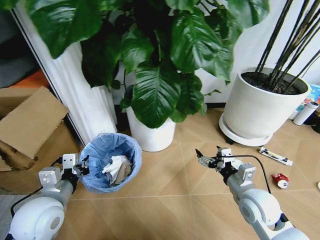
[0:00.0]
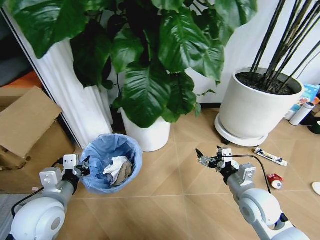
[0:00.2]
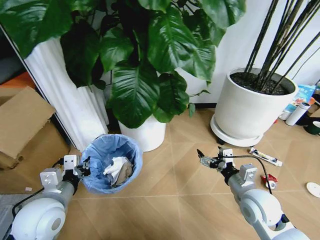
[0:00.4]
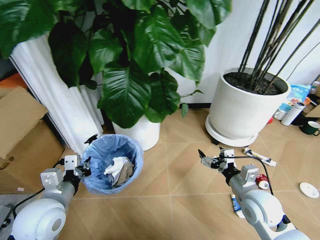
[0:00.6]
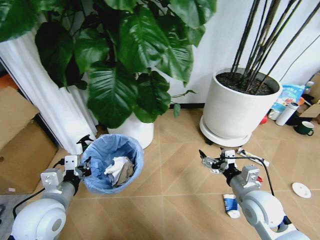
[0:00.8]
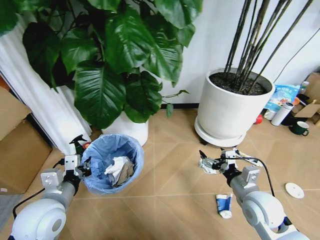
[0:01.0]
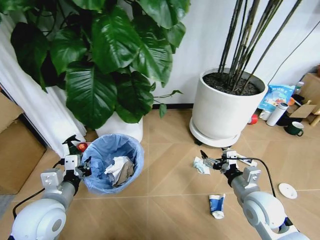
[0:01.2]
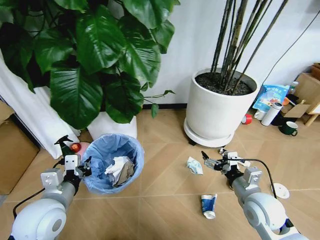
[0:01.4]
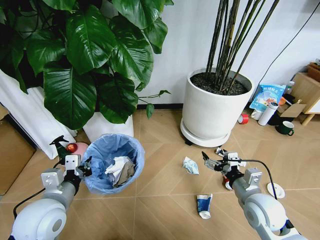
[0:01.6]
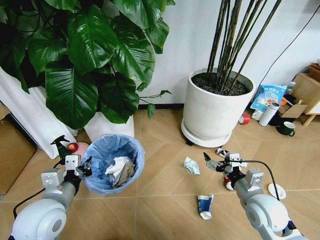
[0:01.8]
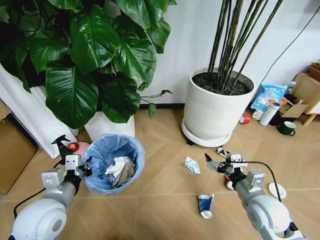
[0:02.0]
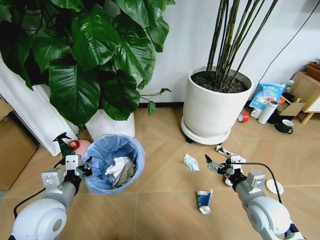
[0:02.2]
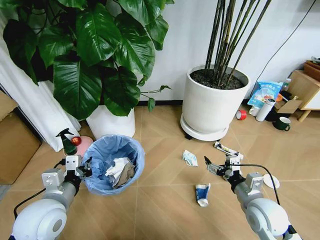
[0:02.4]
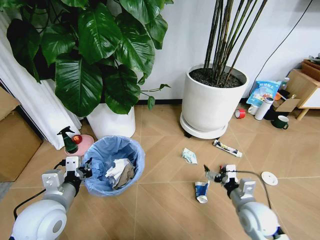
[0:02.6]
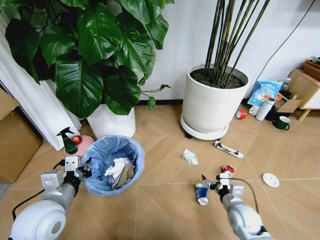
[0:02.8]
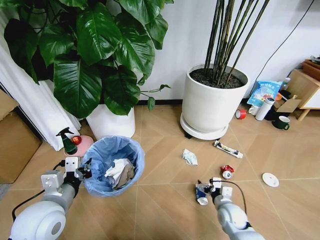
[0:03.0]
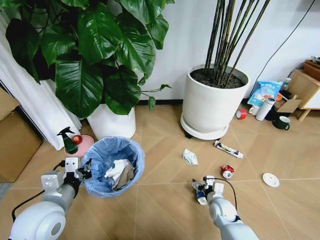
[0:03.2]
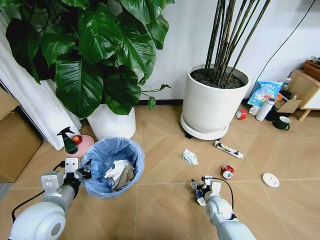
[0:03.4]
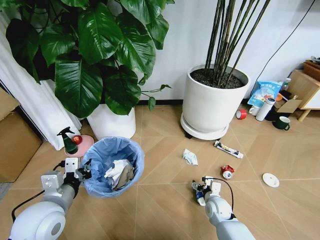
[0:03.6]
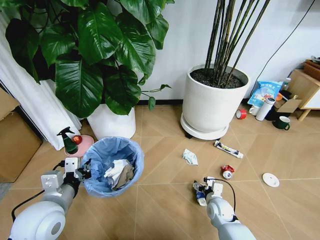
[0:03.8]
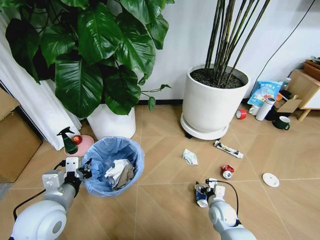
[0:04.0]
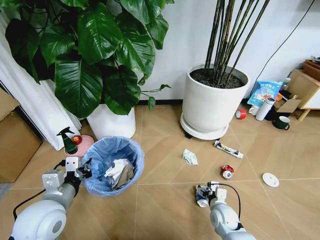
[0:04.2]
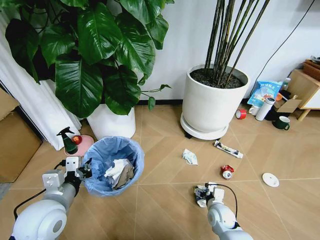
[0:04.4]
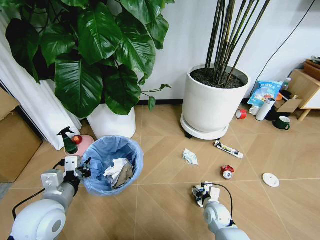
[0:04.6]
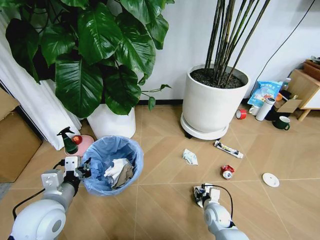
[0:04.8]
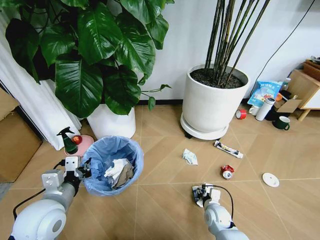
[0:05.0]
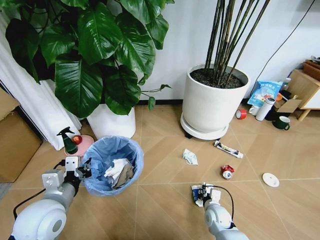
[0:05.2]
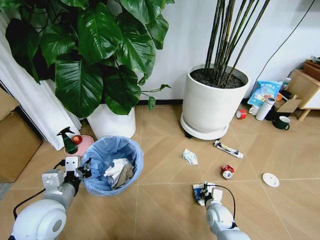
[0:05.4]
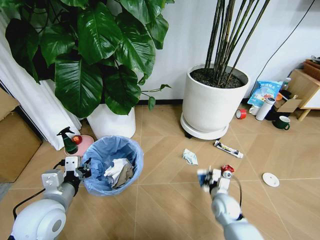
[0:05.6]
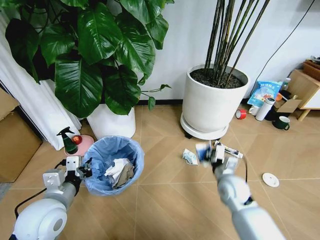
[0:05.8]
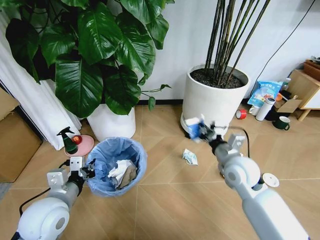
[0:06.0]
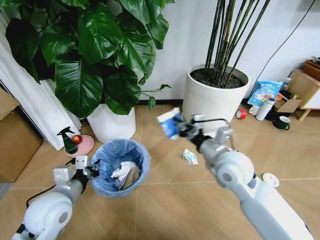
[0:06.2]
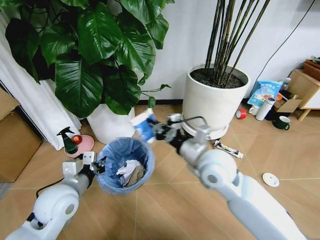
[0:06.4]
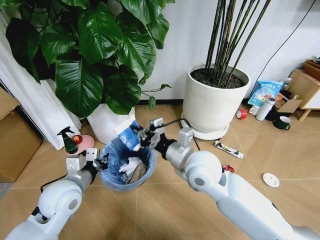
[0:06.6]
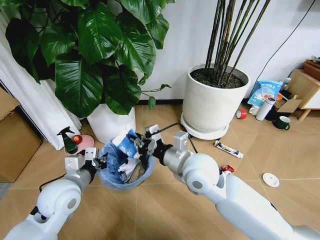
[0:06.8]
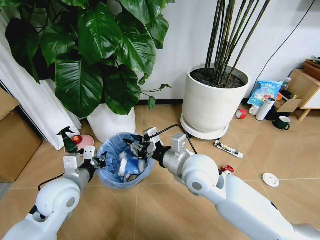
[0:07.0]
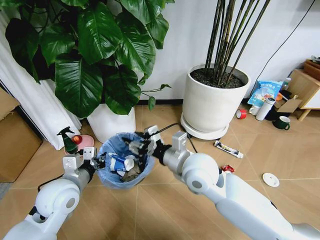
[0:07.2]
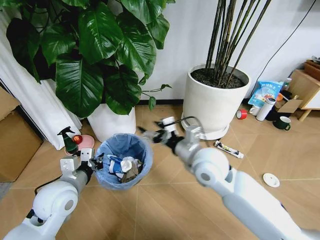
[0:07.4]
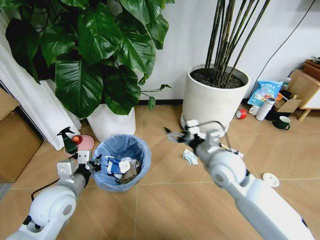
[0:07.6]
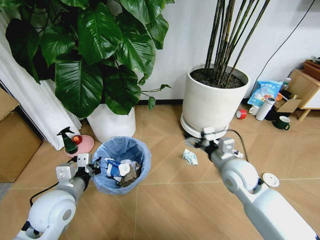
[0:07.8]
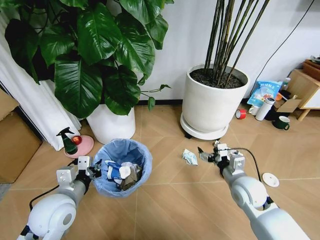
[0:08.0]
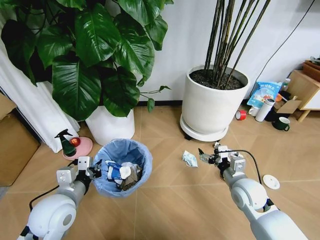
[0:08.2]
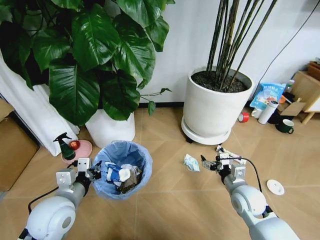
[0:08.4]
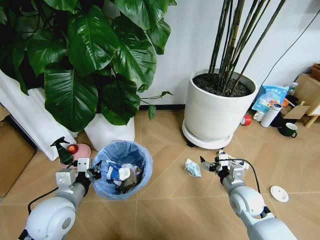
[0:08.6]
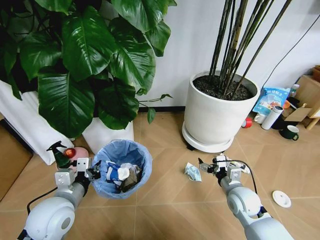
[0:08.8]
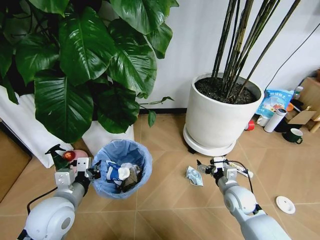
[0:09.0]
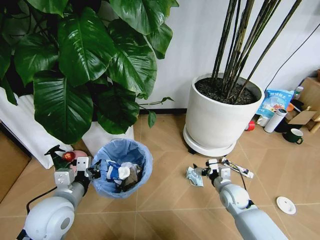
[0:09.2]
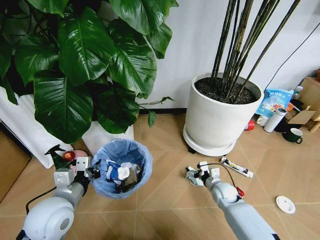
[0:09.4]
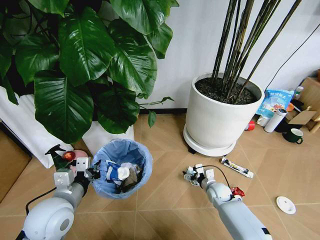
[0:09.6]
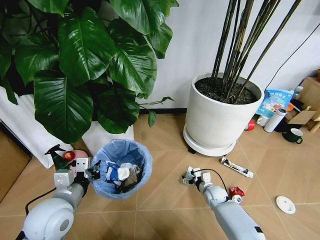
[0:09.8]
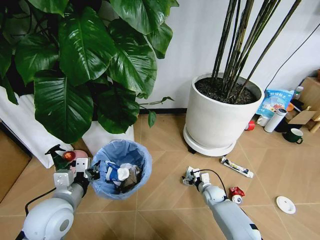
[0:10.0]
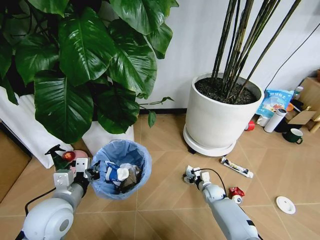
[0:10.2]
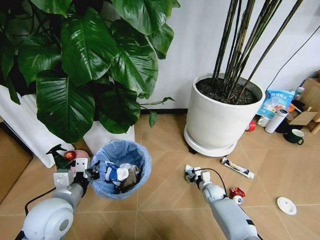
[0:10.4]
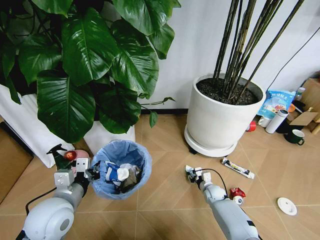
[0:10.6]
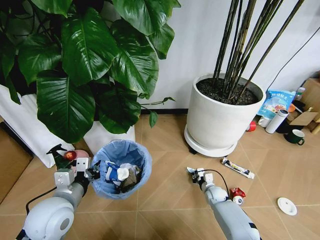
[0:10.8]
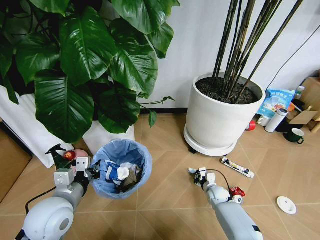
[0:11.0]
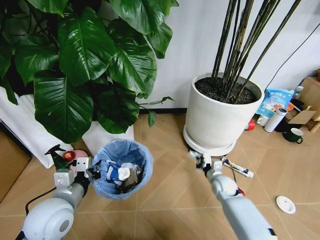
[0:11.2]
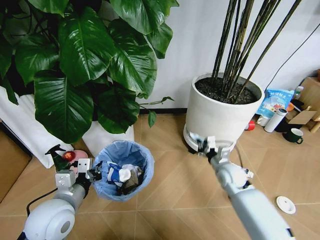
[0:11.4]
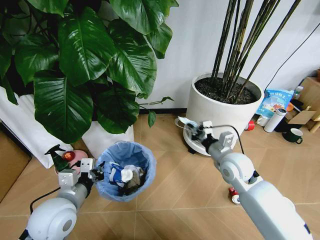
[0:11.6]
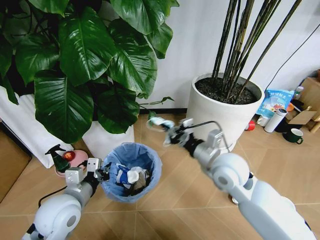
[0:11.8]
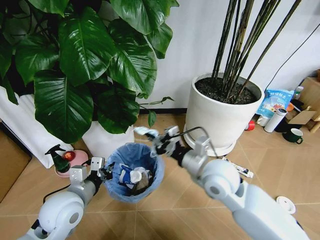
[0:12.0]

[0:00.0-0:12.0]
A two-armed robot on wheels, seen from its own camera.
Task of the whole recording: Pick up the trash bin and place the garbage on the floor into it.
0:01.6 to 0:03.0: The right gripper is displaced downward by about 20 cm.
0:03.0 to 0:04.4: The grippers stay close to where they were, moving slightly.
0:04.4 to 0:06.0: The right gripper is displaced upward by about 25 cm, and closes up.
0:06.0 to 0:07.6: The right gripper moves to the left, roughly 5 cm, and opens.
0:07.6 to 0:09.0: The right gripper heads downward and to the right, covering some 20 cm.
0:09.0 to 0:10.4: The right gripper is displaced downward and forward by some 20 cm, and closes its fingers.
0:10.4 to 0:12.0: The right gripper moves upward, approximately 35 cm, and closes its fingers.

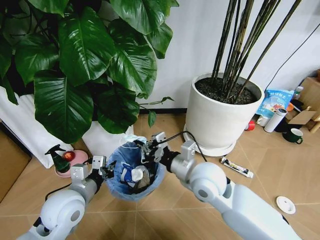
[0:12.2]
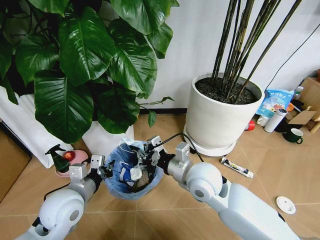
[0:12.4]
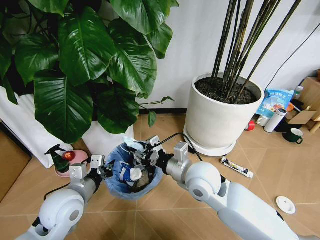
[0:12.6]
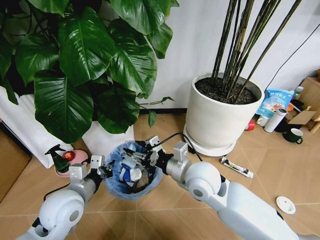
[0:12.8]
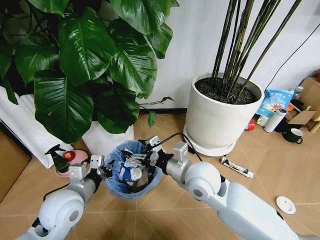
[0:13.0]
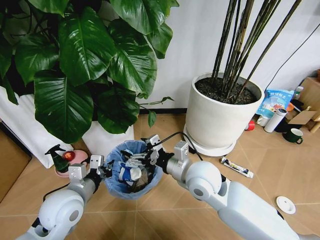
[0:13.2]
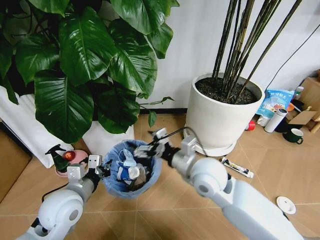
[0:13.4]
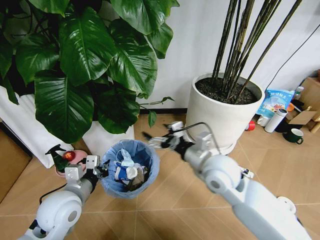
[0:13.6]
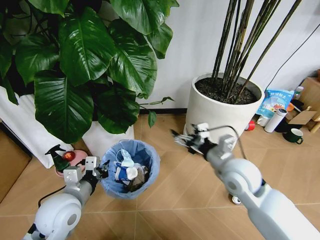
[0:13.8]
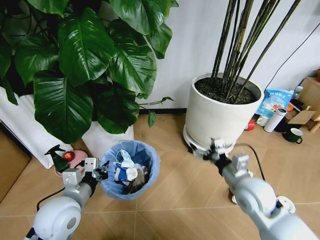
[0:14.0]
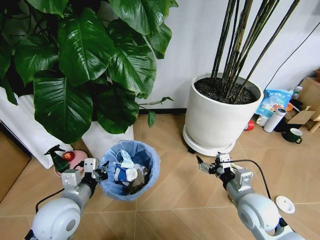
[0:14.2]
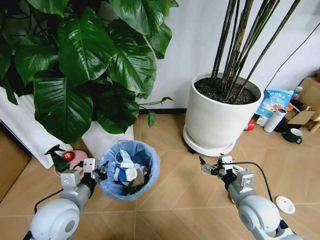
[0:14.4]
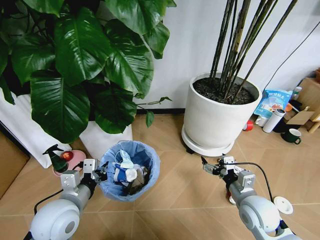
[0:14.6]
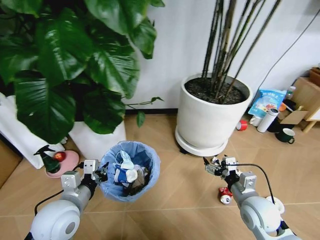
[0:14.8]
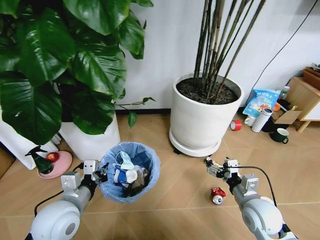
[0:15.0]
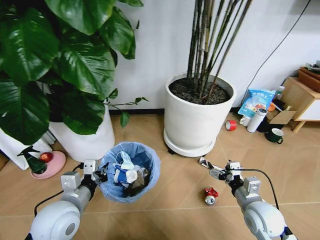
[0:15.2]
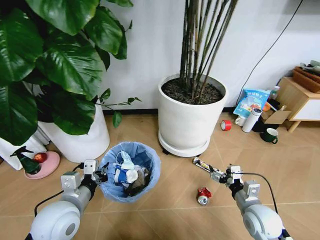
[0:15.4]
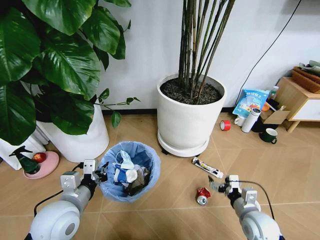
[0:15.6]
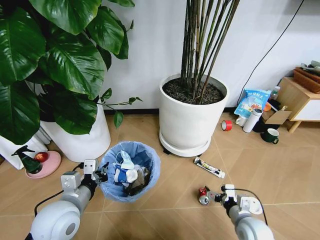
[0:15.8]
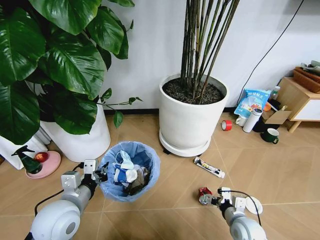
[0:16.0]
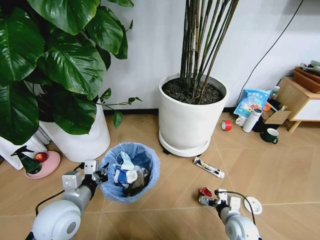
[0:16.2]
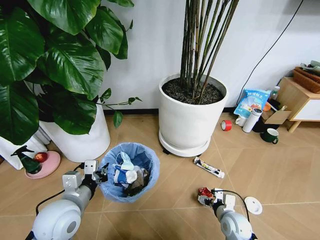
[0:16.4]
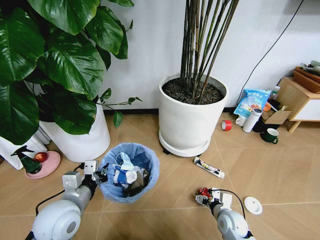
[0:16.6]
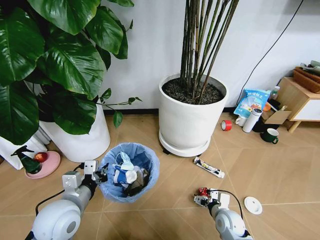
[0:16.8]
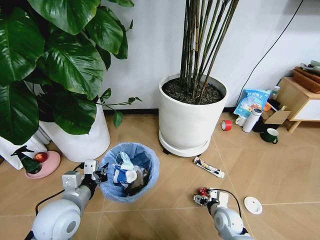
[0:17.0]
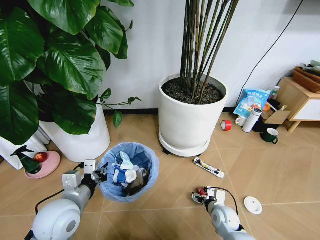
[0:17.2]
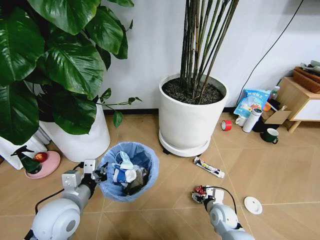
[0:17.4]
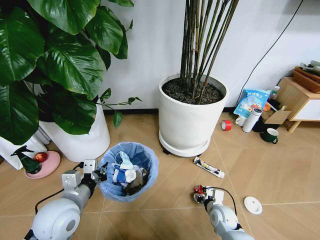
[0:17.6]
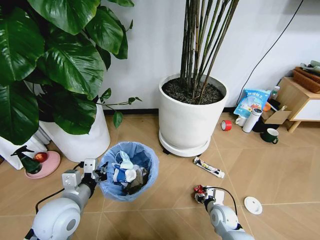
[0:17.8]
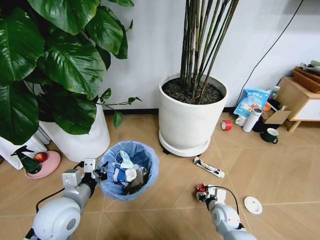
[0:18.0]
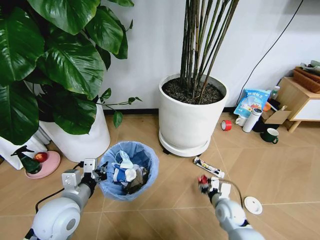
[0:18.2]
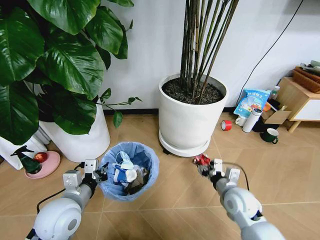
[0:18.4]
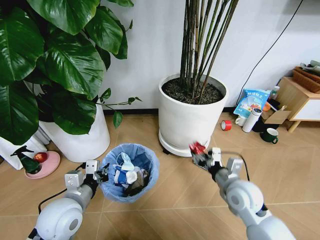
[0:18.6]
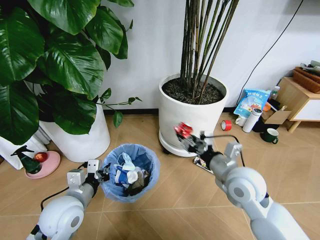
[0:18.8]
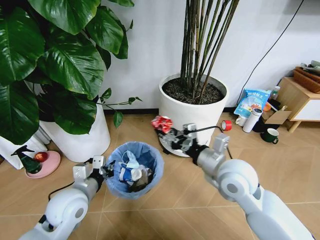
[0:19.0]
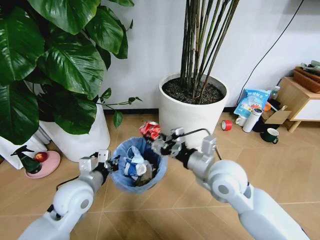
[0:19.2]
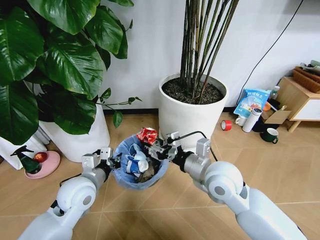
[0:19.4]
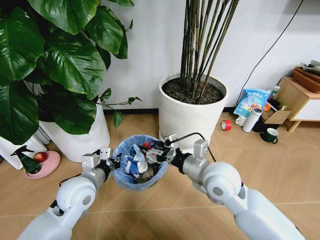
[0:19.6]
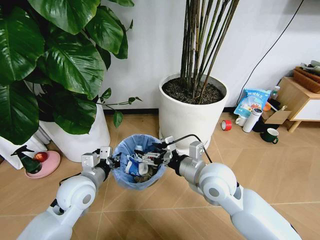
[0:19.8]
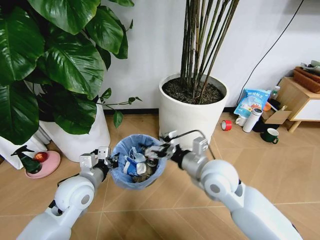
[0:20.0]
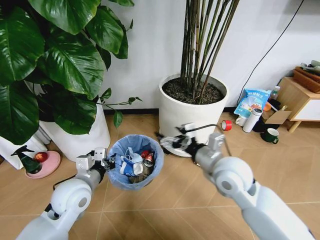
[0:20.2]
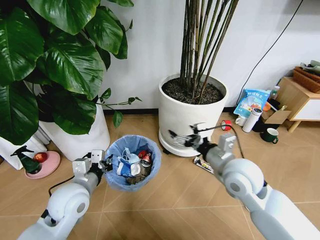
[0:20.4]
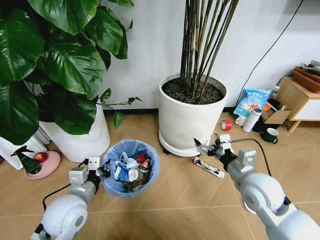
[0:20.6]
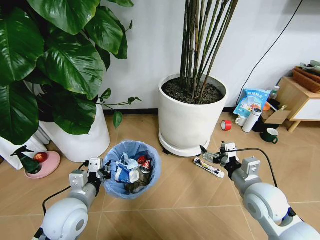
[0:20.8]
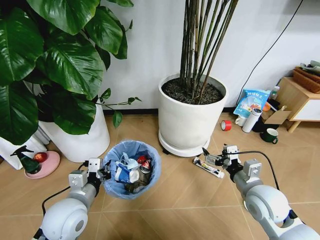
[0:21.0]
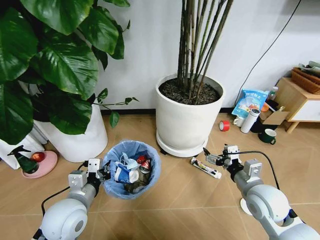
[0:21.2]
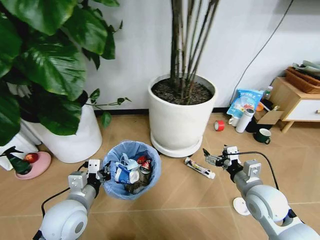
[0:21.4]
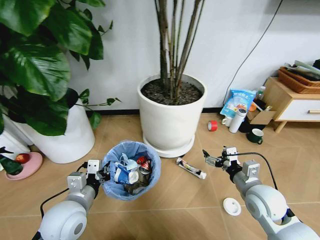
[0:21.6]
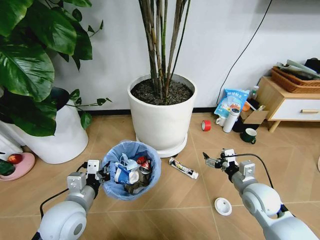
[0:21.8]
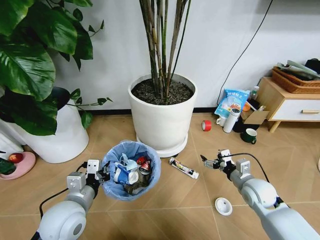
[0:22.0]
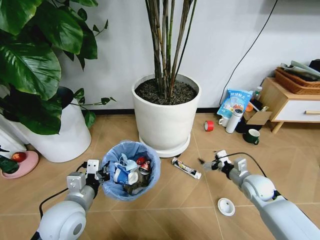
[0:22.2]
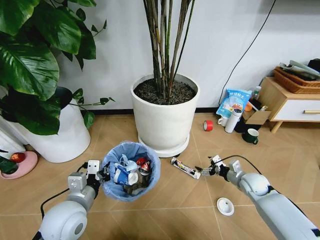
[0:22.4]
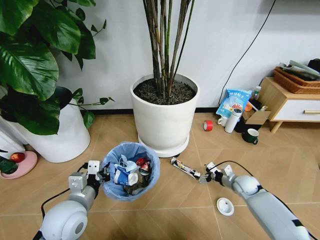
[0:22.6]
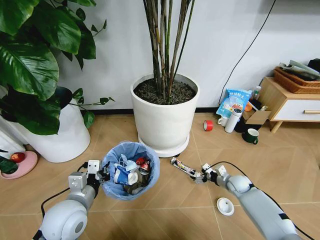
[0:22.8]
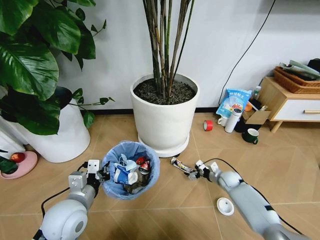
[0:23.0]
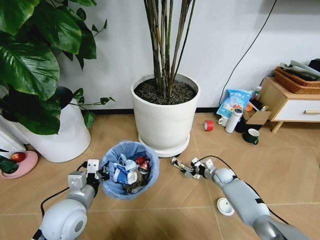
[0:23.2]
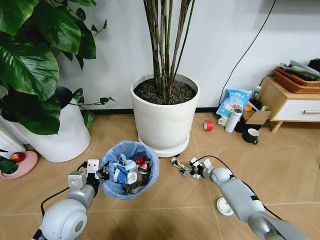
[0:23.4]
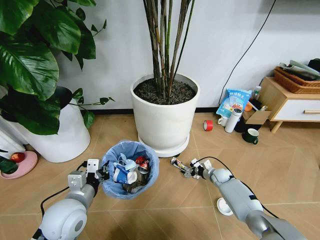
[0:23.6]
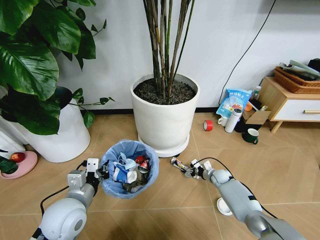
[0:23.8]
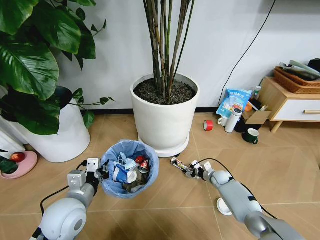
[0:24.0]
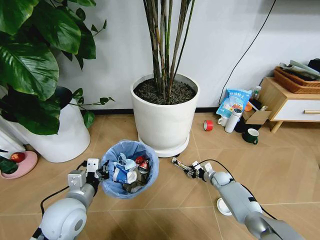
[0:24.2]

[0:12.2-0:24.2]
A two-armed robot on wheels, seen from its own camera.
Task of the whole recording: Pick up the trash bin and place the garbage on the floor into it.
0:12.2 to 0:13.8: The right gripper travels to the right by approximately 10 cm, and opens up.
0:13.8 to 0:15.2: The right gripper shifts approximately 15 cm downward, to the right and backward.
0:15.2 to 0:16.6: The right gripper shifts about 15 cm downward.
0:16.6 to 0:18.2: The right gripper closes up.
0:18.2 to 0:19.8: The left gripper goes some 5 cm forward. The right gripper heads upward and to the left, covering roughly 30 cm, and opens.
0:19.8 to 0:21.2: The right gripper travels to the right and downward by about 15 cm; the left gripper goes approximately 5 cm backward.
0:21.2 to 0:22.6: The right gripper goes some 25 cm downward, forward and to the right.
0:22.6 to 0:24.2: The right gripper is displaced downward, forward and to the left by roughly 10 cm, and closes its fingers.
